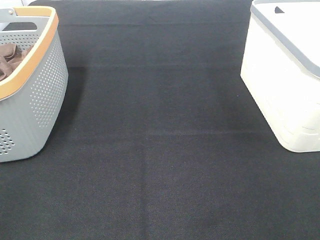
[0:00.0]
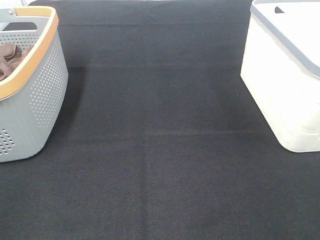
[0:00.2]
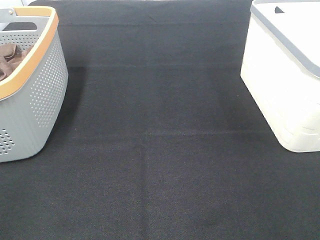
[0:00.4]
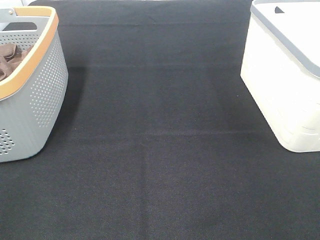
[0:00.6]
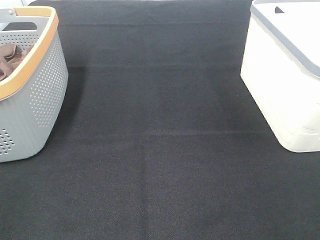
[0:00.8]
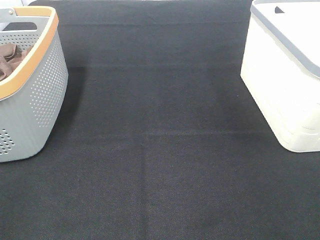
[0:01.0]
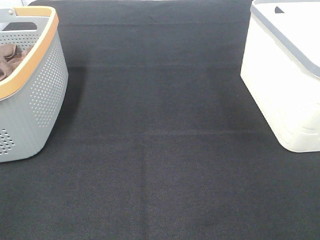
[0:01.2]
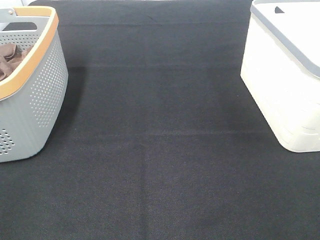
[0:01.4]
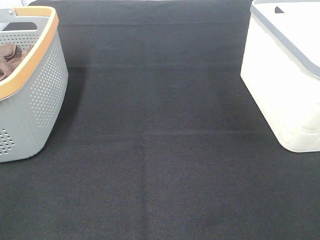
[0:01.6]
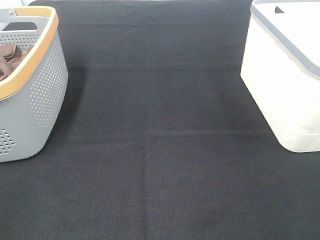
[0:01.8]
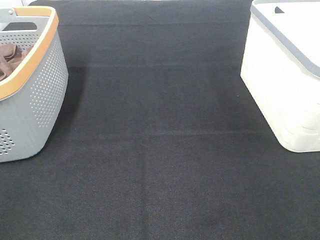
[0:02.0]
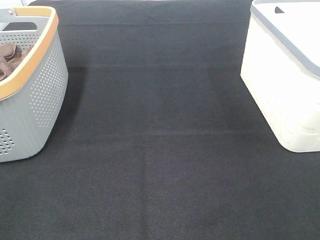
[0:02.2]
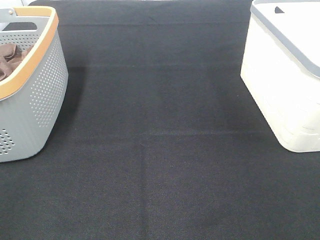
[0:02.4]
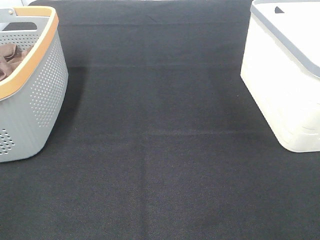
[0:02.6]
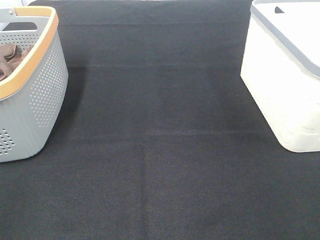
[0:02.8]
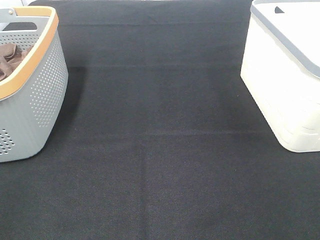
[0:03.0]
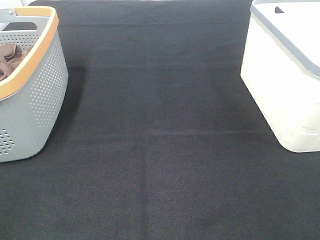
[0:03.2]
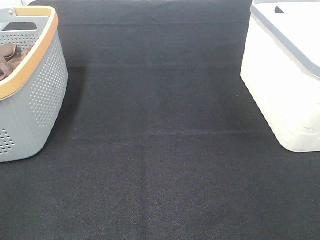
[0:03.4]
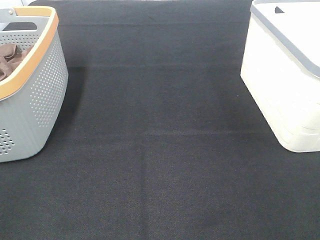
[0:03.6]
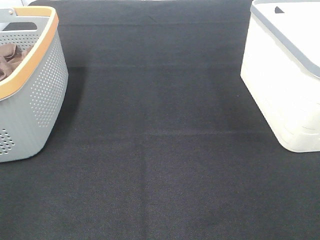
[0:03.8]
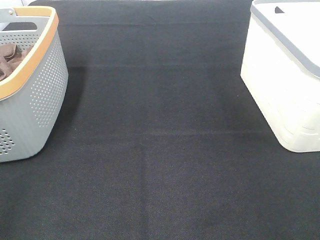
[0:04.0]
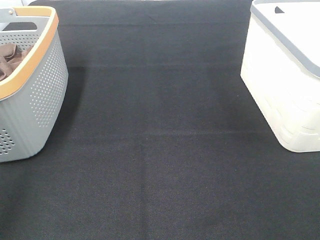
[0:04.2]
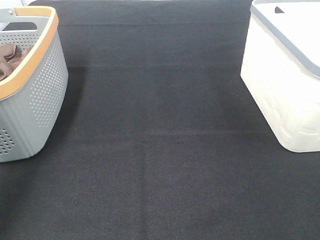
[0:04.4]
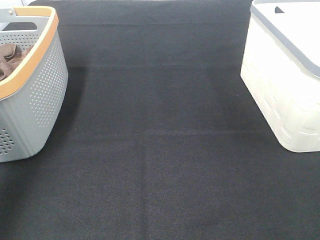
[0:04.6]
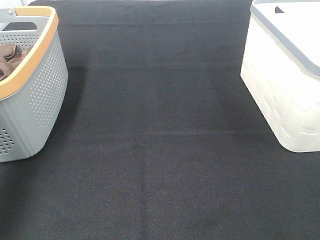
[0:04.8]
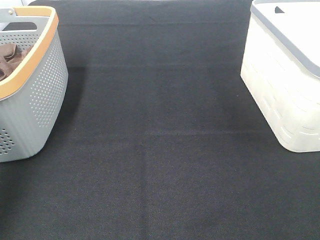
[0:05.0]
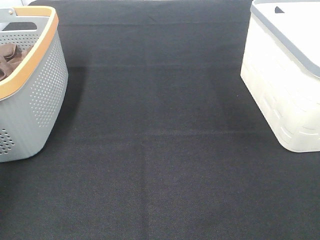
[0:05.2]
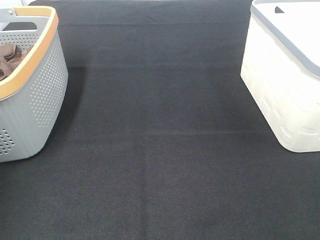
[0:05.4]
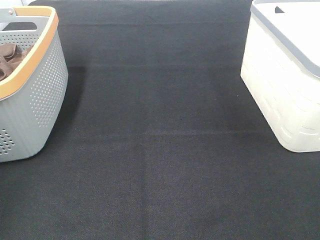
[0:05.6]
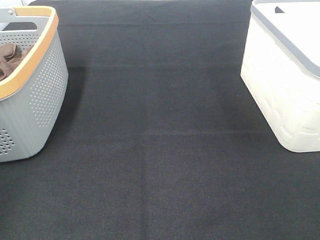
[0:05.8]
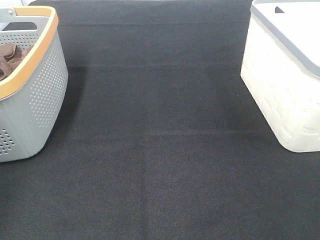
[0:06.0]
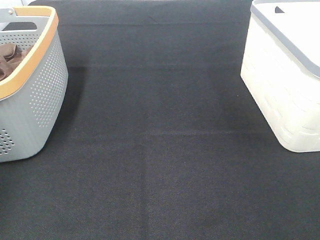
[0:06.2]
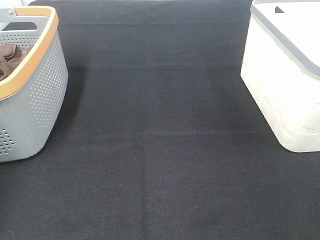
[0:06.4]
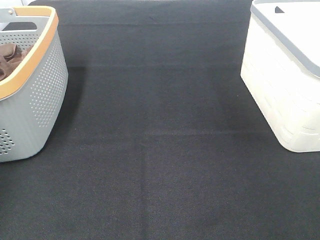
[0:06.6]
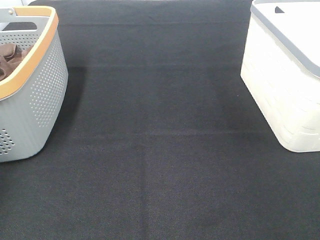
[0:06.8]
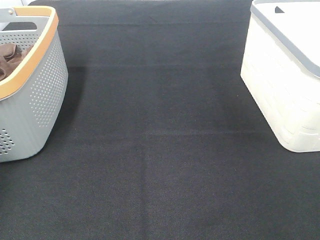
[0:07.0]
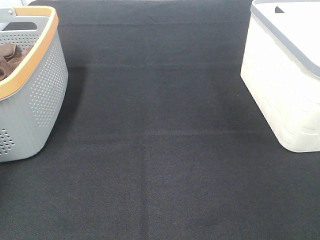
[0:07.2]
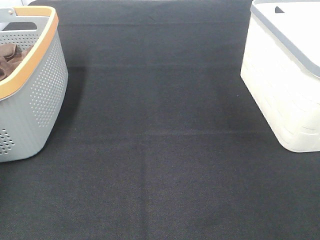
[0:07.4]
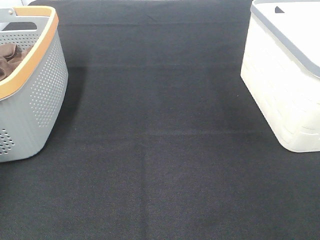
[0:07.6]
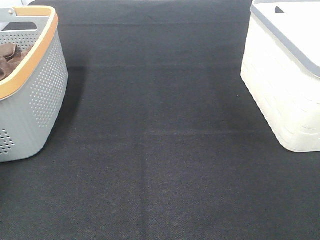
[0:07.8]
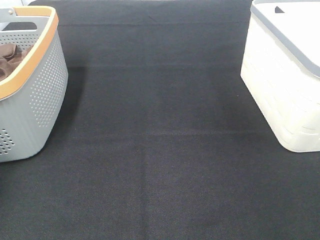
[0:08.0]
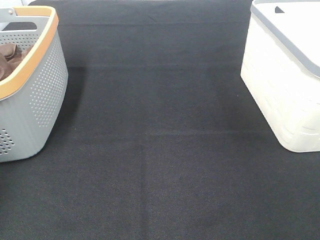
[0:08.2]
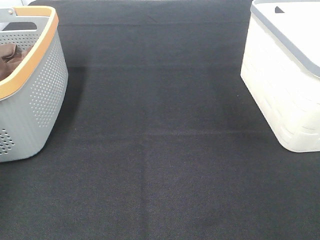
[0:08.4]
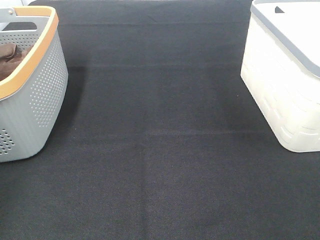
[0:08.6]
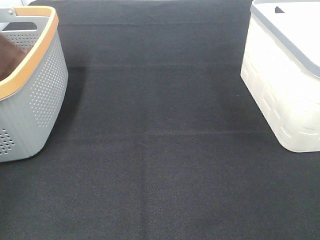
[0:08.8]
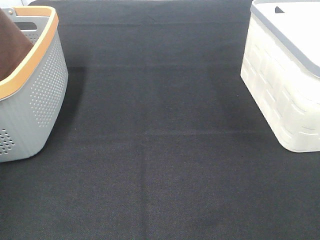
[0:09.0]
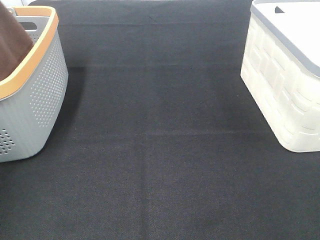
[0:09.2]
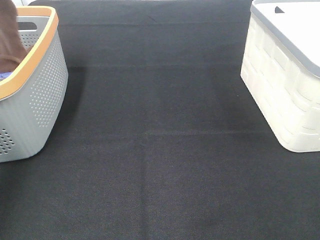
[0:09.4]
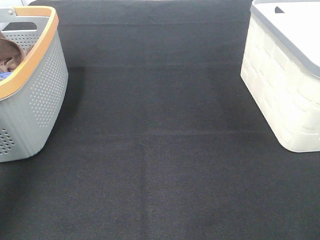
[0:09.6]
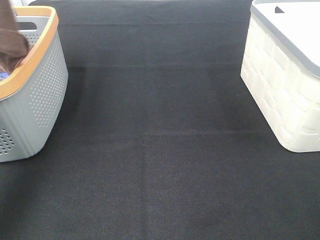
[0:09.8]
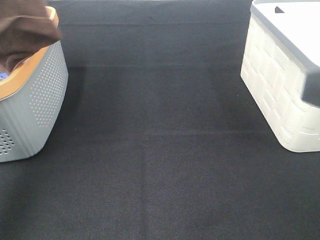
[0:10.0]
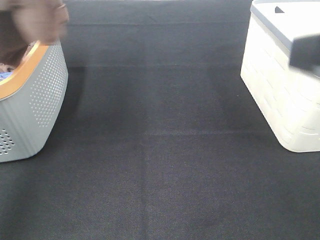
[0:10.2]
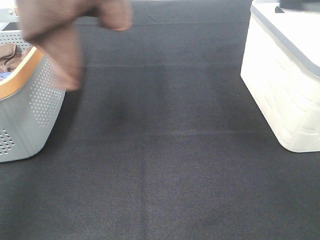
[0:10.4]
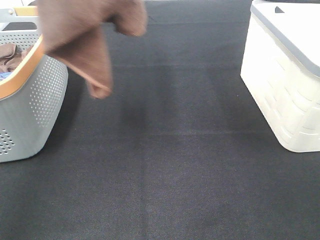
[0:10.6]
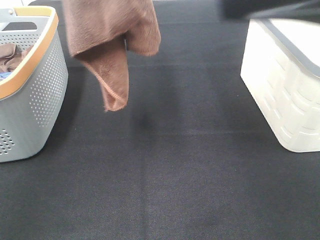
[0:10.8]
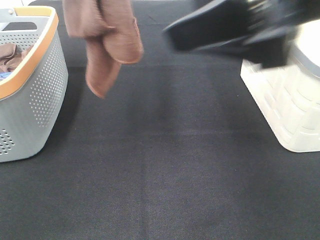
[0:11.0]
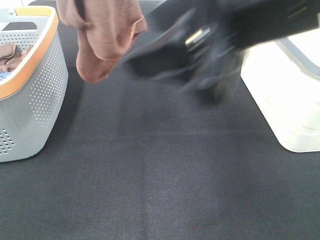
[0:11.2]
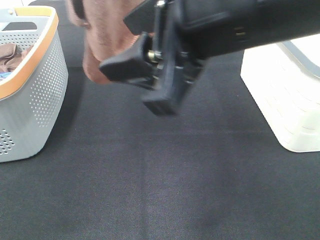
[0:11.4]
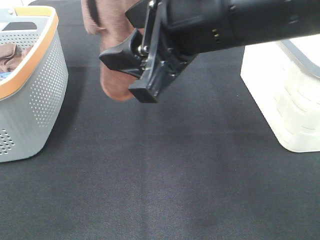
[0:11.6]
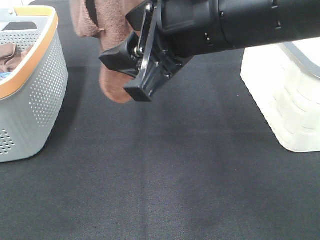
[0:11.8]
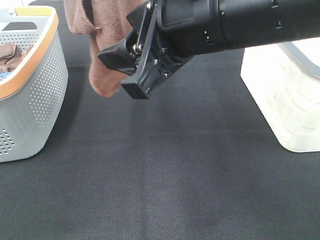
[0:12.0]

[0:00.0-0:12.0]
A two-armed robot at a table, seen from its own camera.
Task of the whole recording: Remove the towel and place it.
0:00.0 to 0:03.0: Both grippers stay put.
0:03.0 to 0:04.4: The left gripper goes about 20 cm forward and upward.
0:04.4 to 0:06.0: The left gripper moves forward and to the left, about 25 cm.
0:07.6 to 0:09.0: The left gripper heads upward and backward, covering some 25 cm.
0:09.0 to 0:10.4: The left gripper shifts about 20 cm to the right, backward and upward. The right gripper moves forward, upward and to the left, some 20 cm.
0:10.4 to 0:12.0: The right gripper heads to the left and forward, covering some 15 cm. The left gripper changes place by approximately 5 cm.

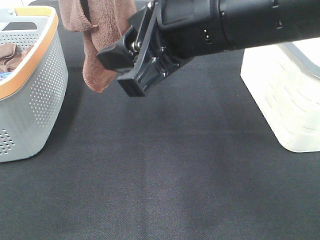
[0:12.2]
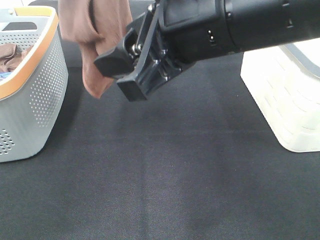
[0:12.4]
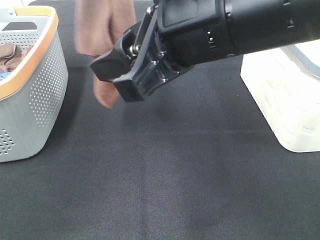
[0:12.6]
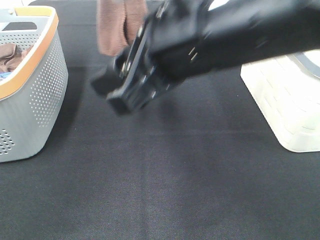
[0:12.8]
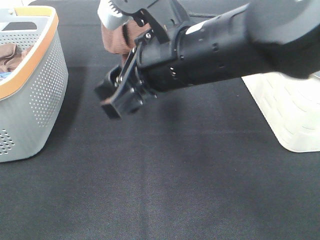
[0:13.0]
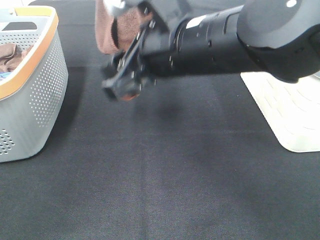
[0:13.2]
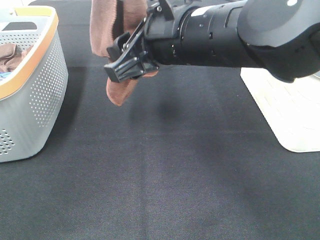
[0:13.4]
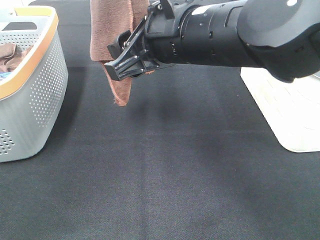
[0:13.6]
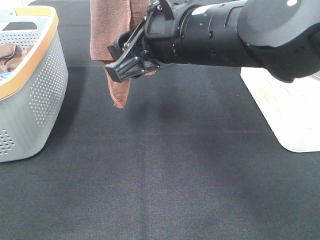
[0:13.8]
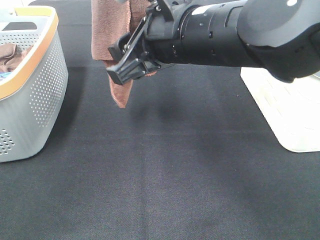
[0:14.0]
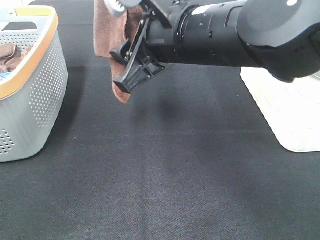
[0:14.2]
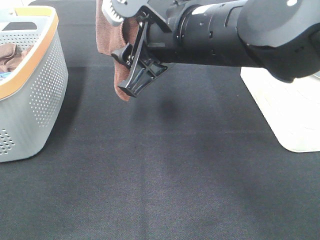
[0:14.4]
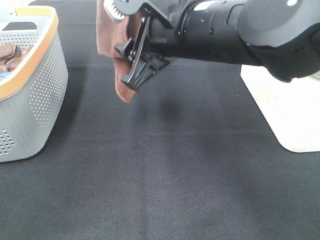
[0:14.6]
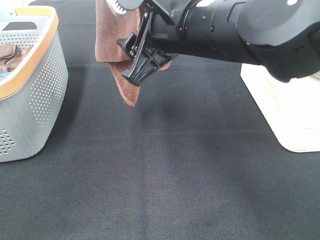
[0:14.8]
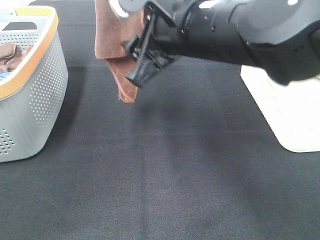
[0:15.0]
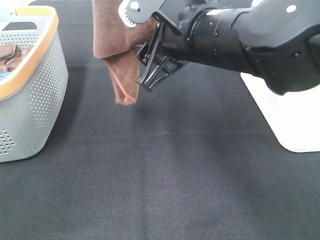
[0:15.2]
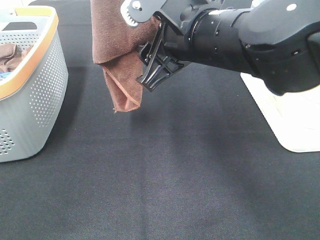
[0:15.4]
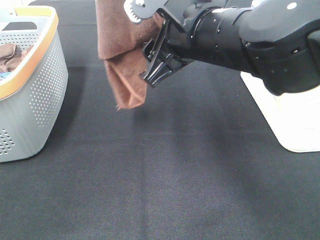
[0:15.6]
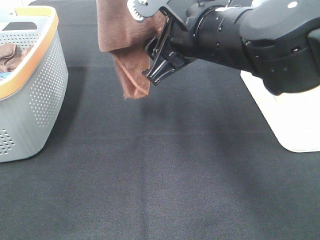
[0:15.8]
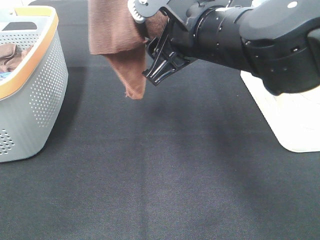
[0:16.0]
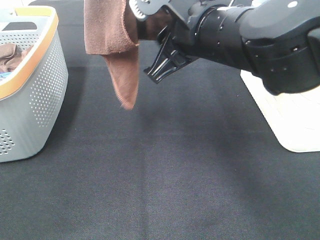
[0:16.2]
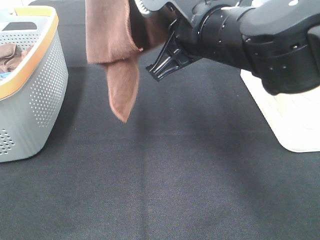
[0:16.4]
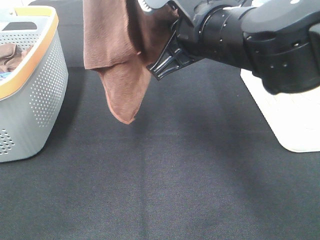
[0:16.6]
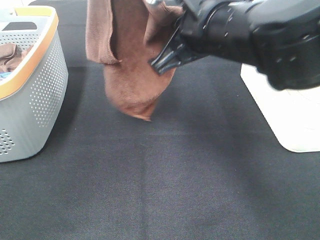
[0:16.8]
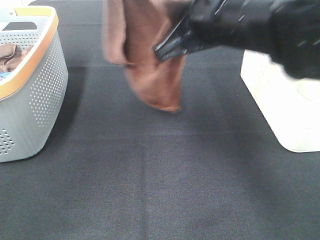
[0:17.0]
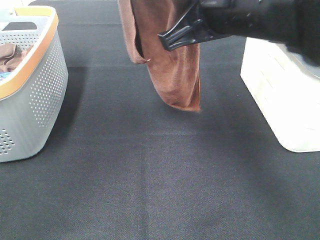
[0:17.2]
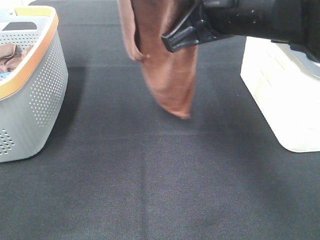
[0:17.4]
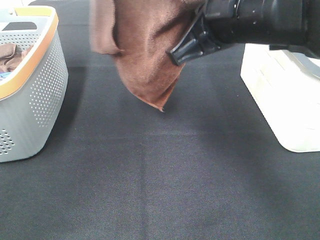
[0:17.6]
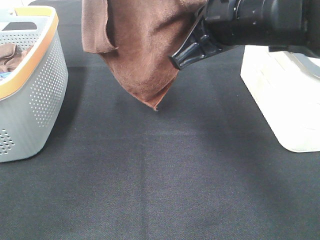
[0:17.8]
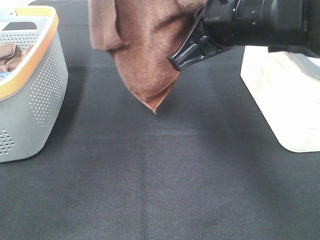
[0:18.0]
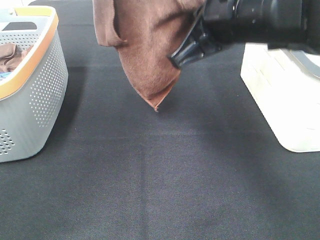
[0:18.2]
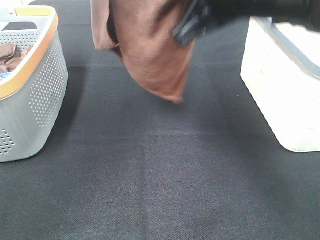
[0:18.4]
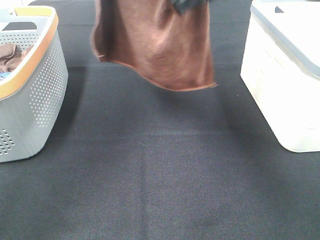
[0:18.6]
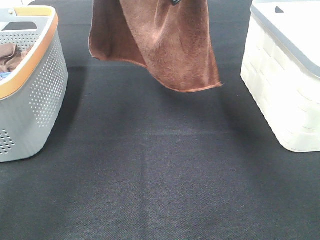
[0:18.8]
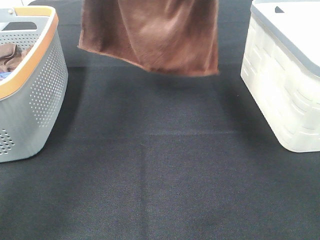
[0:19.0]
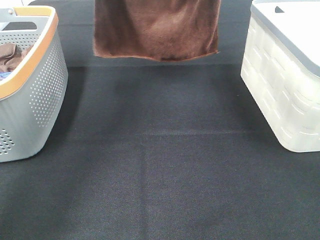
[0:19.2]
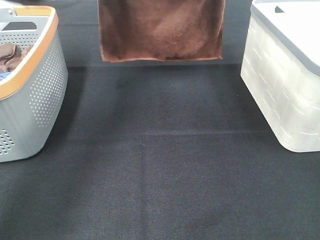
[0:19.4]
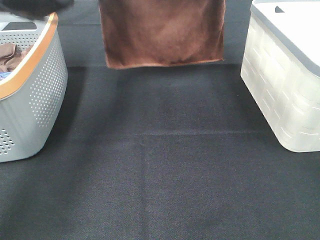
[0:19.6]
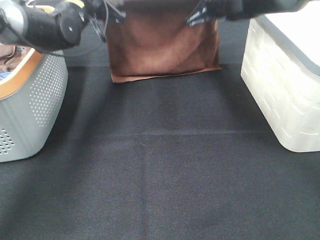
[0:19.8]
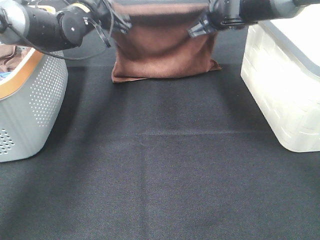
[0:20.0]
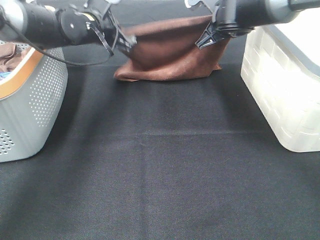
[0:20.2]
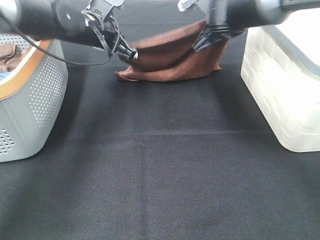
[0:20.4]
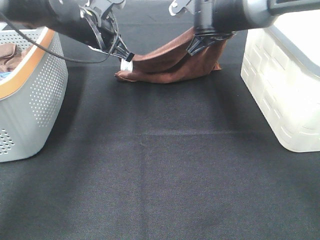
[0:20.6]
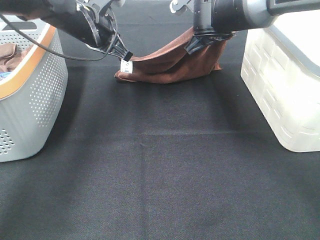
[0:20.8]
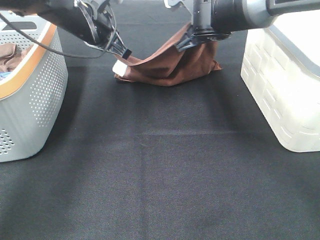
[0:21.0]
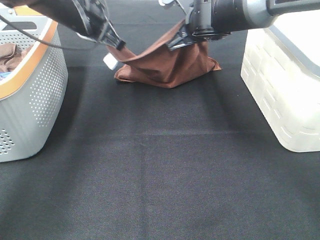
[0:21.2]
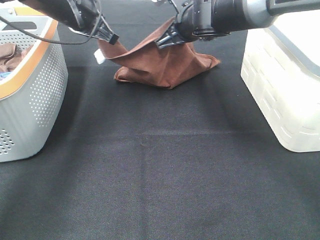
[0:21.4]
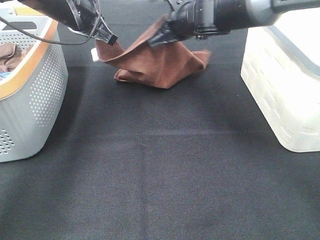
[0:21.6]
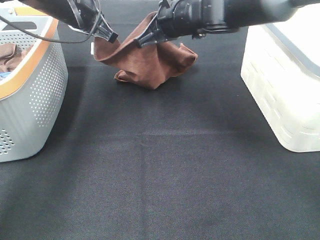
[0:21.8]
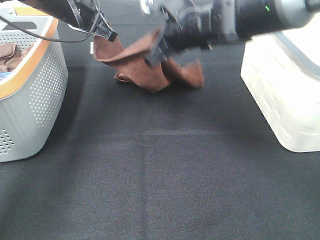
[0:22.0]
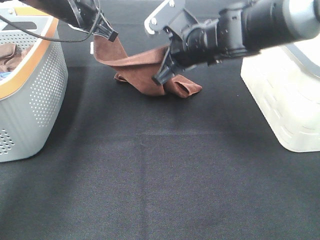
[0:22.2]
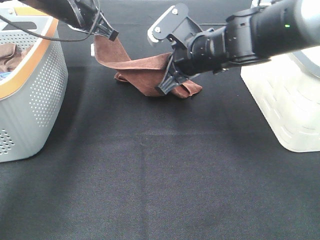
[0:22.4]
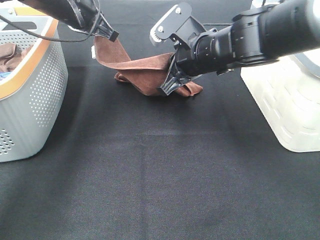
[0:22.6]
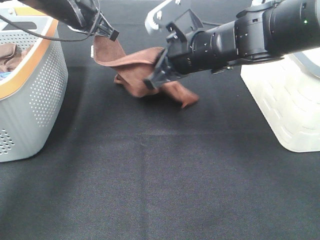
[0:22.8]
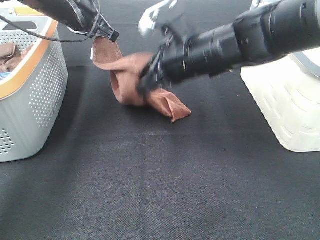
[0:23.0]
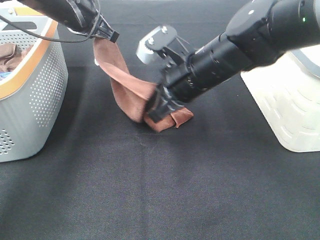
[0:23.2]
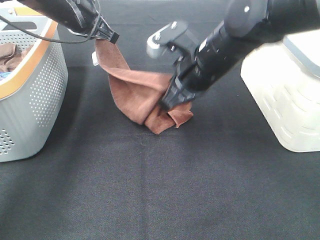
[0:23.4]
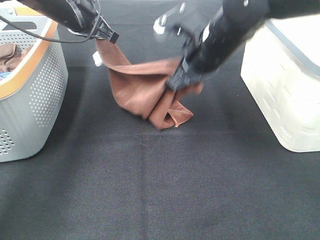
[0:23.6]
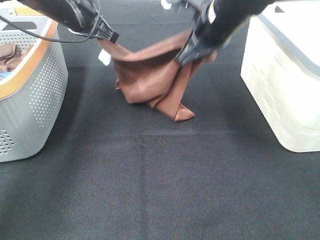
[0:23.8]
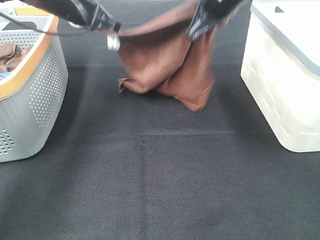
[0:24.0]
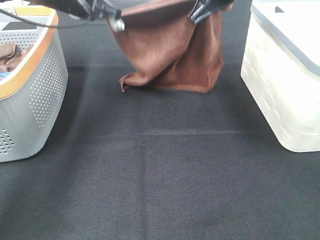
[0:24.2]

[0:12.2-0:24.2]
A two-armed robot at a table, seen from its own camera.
Task of the whole recording: Remove the towel and place it.
Step, 0:12.2 to 0:15.4: Right hand: grab a corner of the brown towel and straighten it.
Step, 0:15.6 to 0:22.8: Left hand: spread the brown towel flat on the table.
Step, 0:15.6 to 0:22.8: Right hand: spread the brown towel flat on the table.
0:12.2 to 0:13.8: The right gripper shifts by approximately 5 cm, while the left gripper changes place by approximately 5 cm.
0:15.2 to 0:16.6: The right gripper closes up.
0:18.2 to 0:19.8: The left gripper travels downward and forward by roughly 30 cm. Meanwhile the right gripper shifts about 25 cm forward.
0:19.8 to 0:21.2: The right gripper shifts by roughly 5 cm; the left gripper ends up approximately 5 cm from where it was.
0:21.2 to 0:22.6: The right gripper shifts approximately 10 cm backward.
0:22.6 to 0:24.2: The right gripper is displaced upward and forward by approximately 10 cm.
